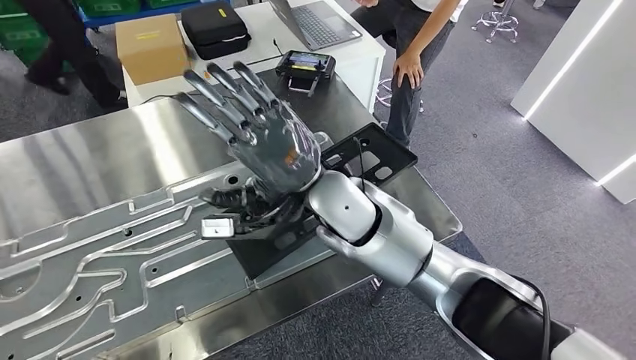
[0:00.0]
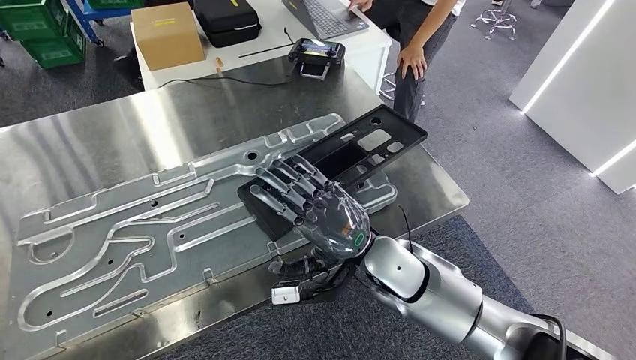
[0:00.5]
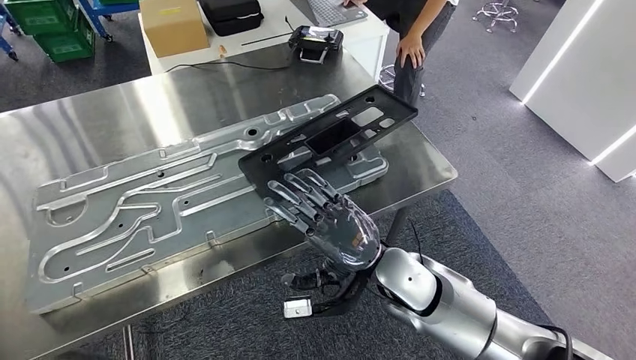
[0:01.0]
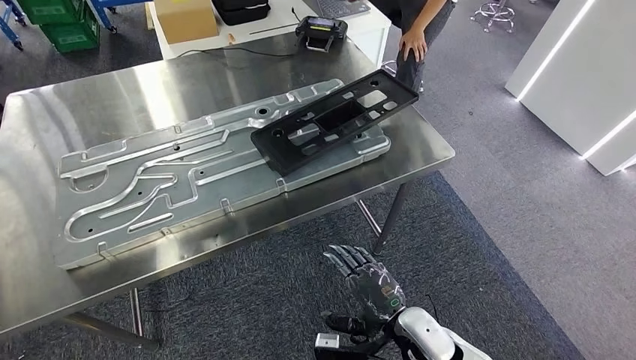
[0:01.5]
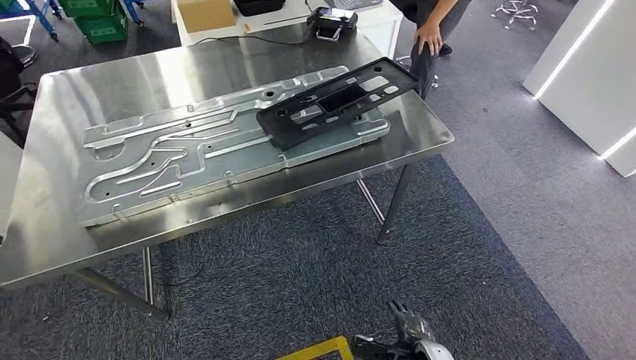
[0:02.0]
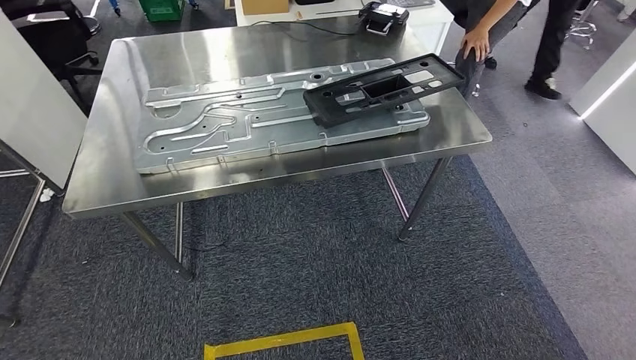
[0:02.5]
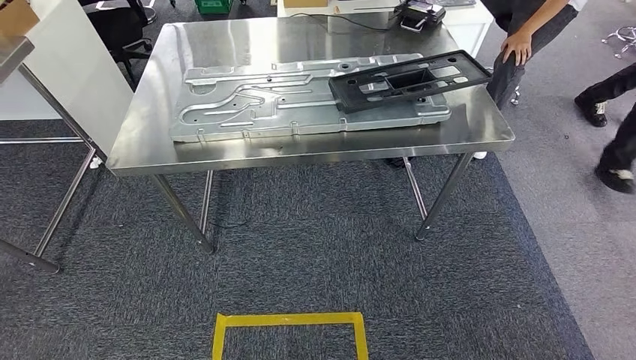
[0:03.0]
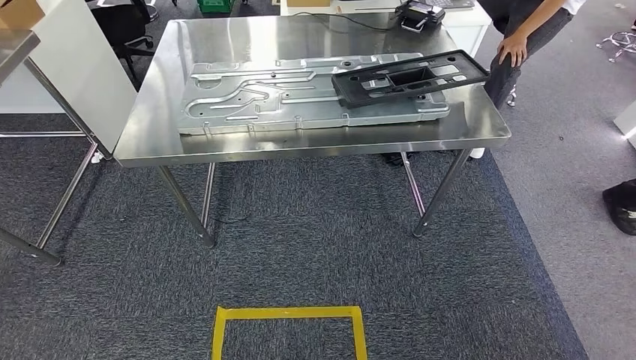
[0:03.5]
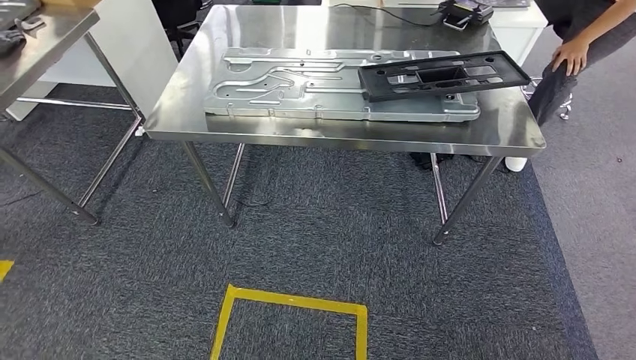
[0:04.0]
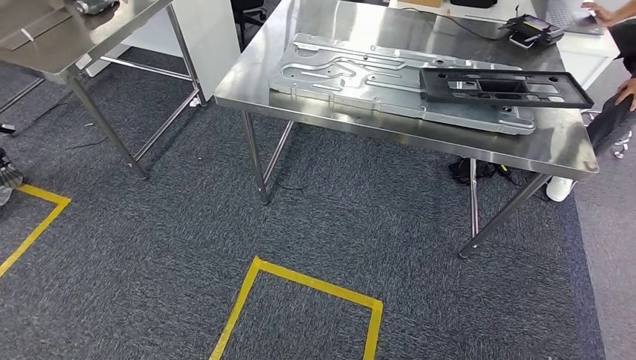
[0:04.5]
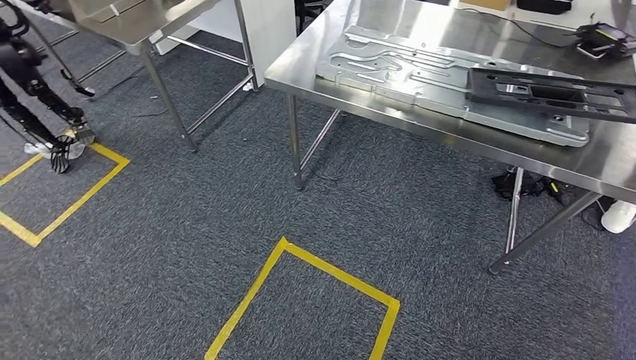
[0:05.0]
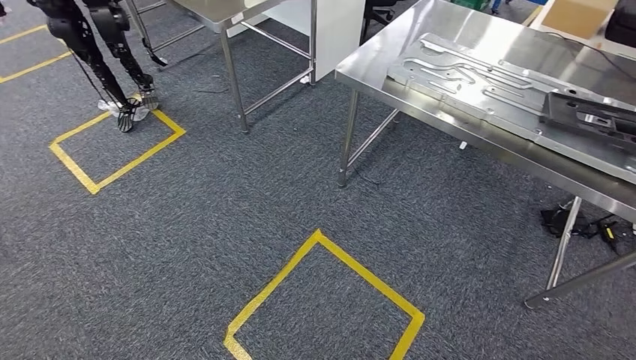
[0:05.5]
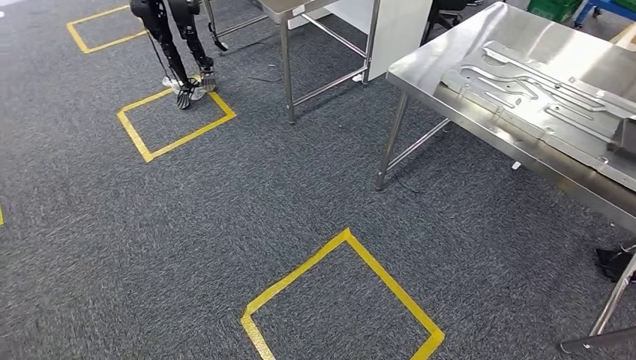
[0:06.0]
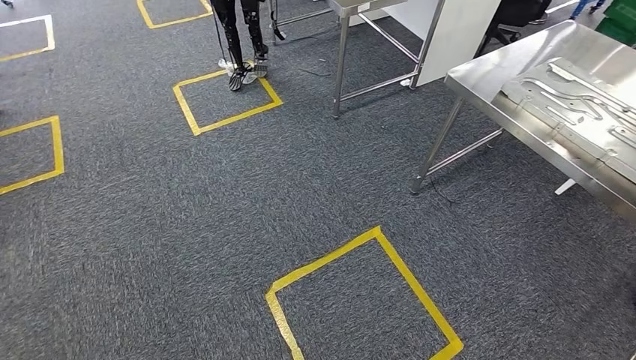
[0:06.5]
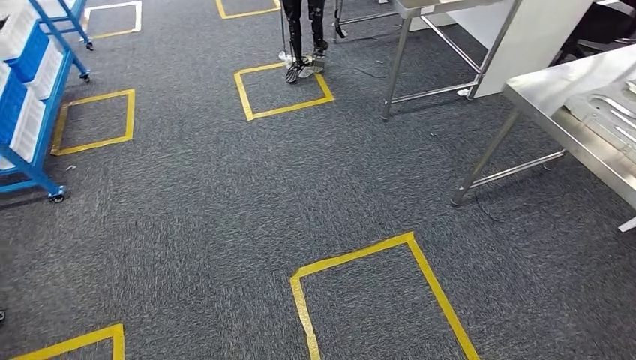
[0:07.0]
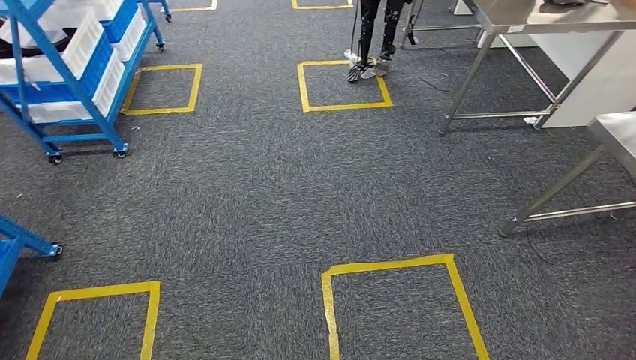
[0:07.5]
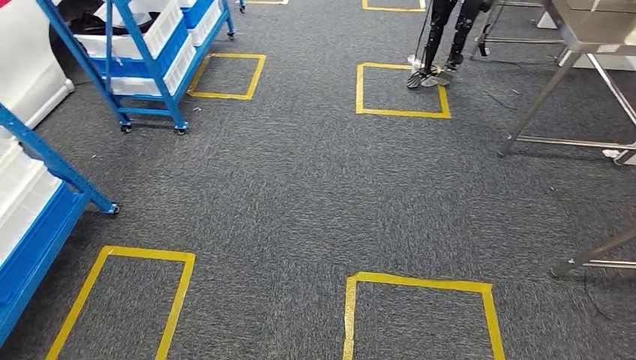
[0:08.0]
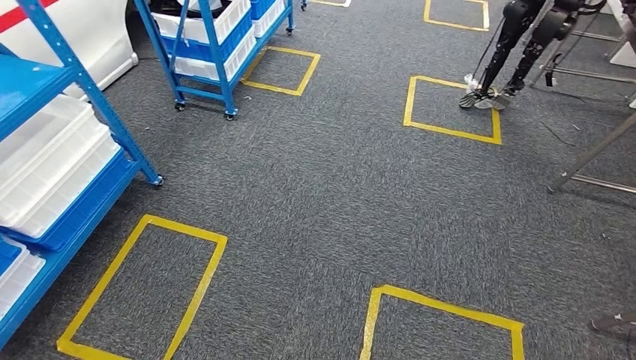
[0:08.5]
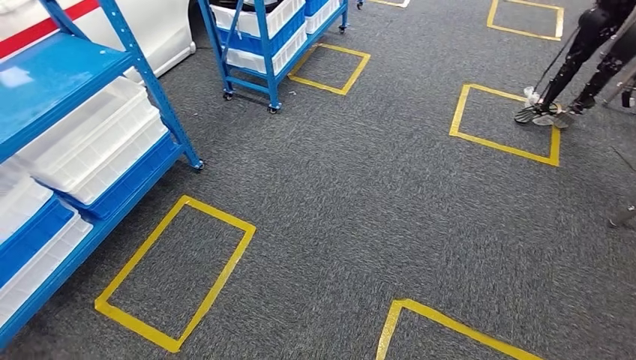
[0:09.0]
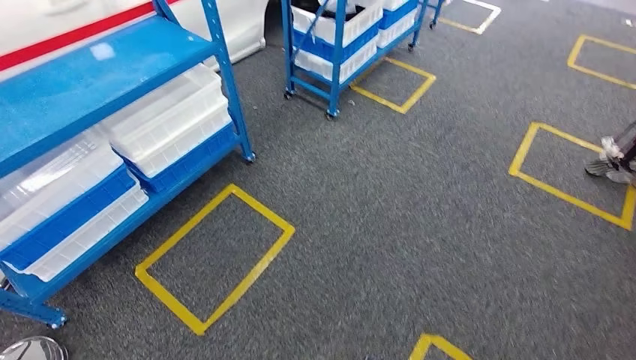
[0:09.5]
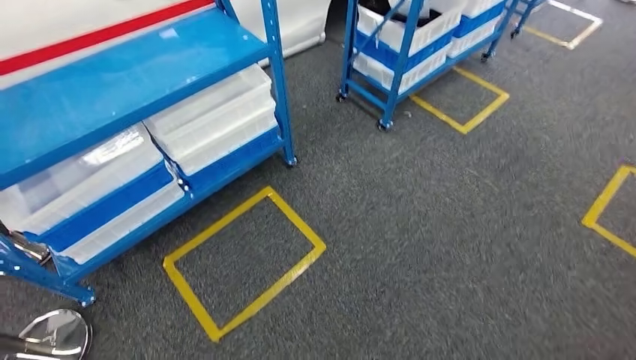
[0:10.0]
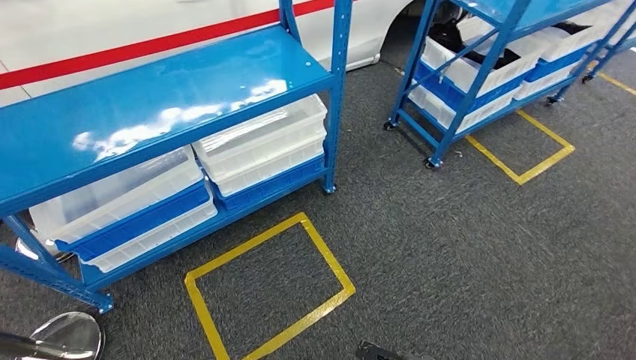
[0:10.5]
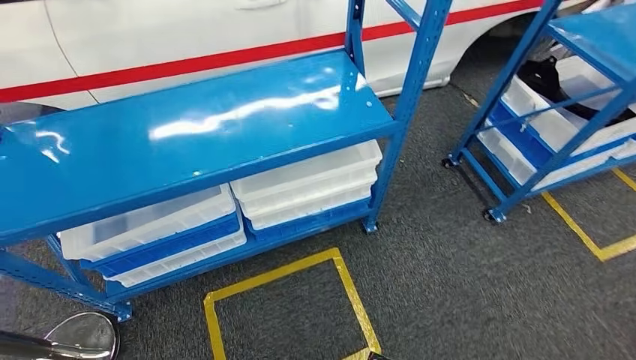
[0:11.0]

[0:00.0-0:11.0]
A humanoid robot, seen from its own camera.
Step, 0:00.5 to 0:11.0: Return to the initial position at the shelf.
